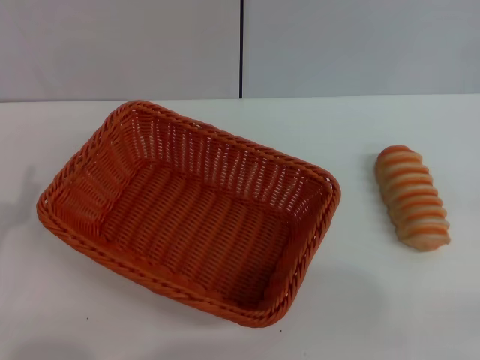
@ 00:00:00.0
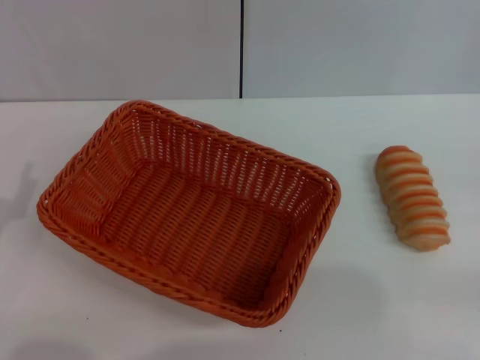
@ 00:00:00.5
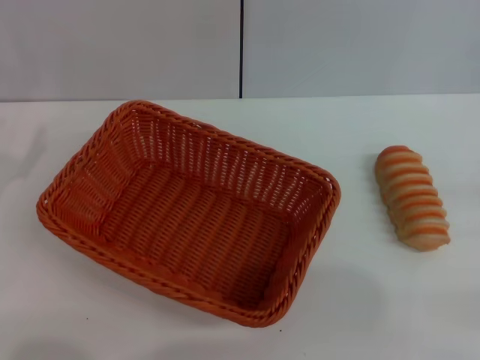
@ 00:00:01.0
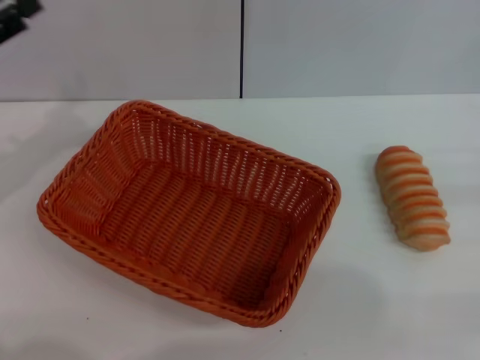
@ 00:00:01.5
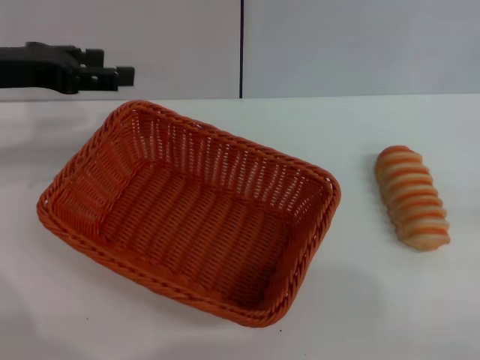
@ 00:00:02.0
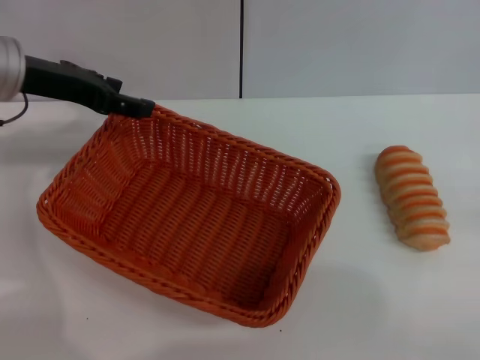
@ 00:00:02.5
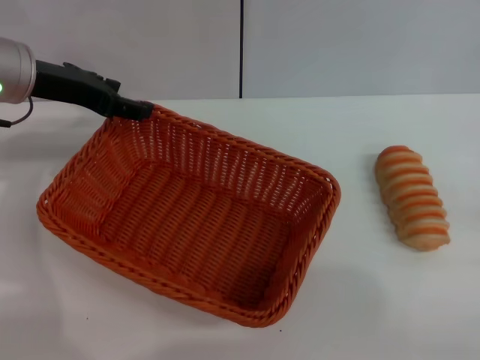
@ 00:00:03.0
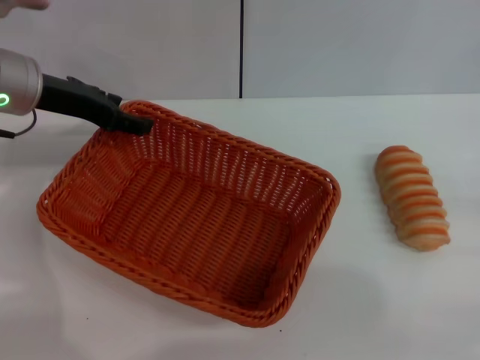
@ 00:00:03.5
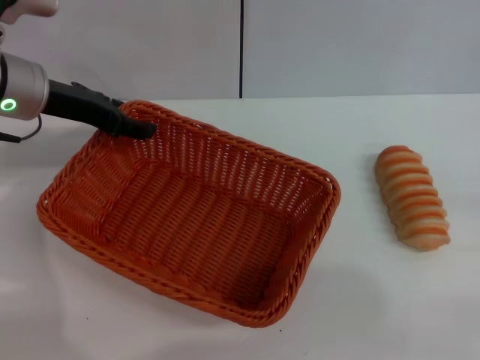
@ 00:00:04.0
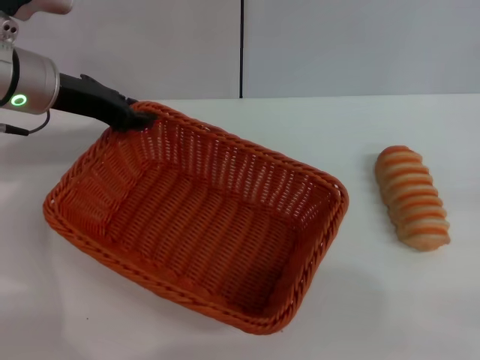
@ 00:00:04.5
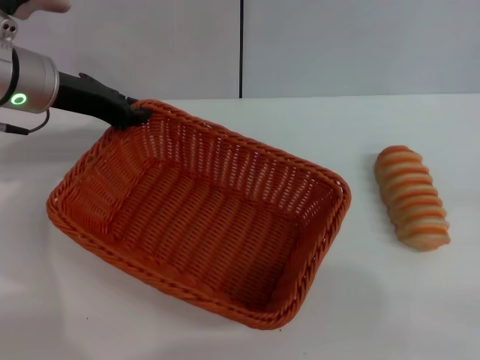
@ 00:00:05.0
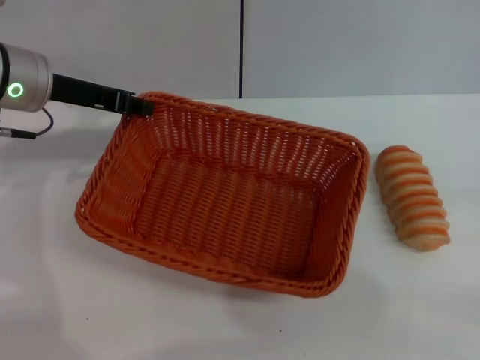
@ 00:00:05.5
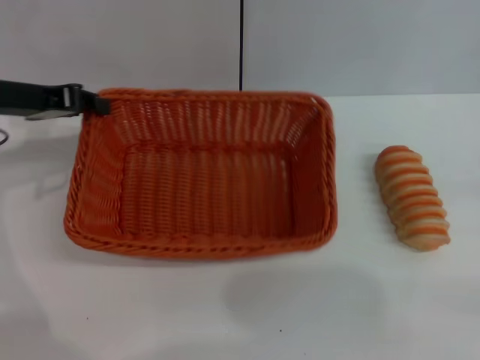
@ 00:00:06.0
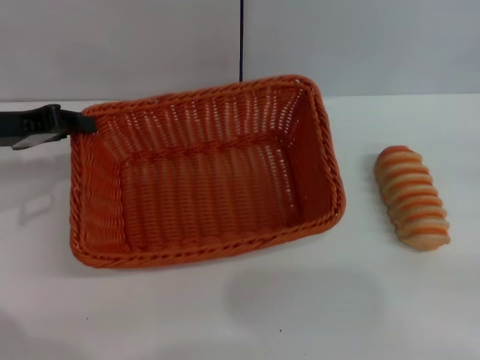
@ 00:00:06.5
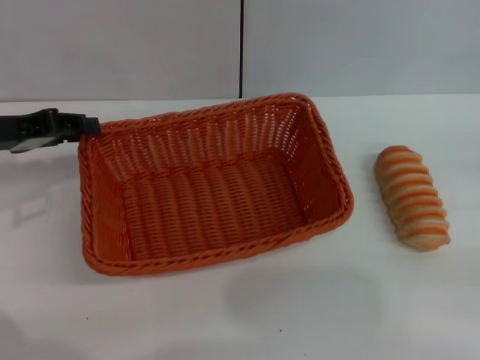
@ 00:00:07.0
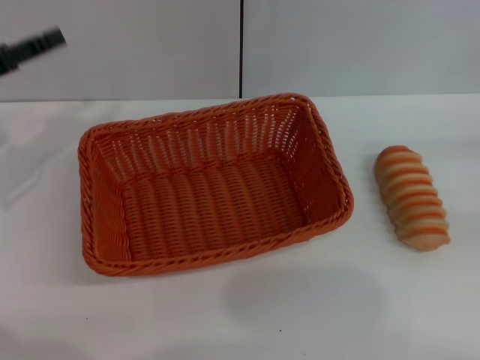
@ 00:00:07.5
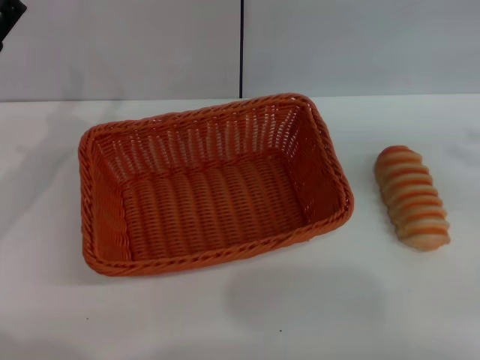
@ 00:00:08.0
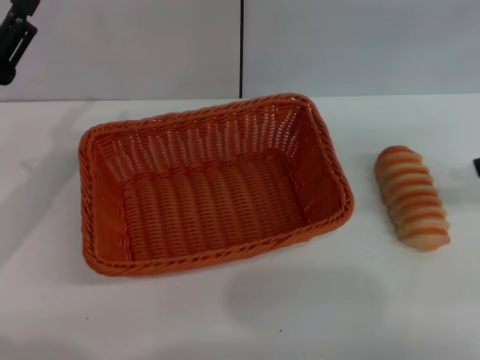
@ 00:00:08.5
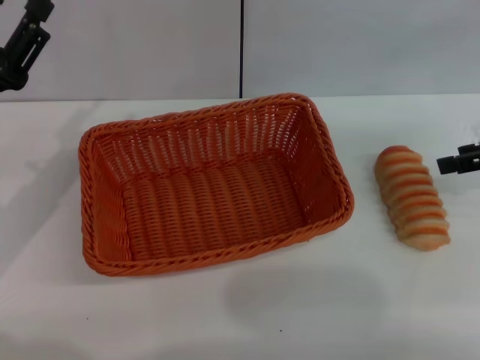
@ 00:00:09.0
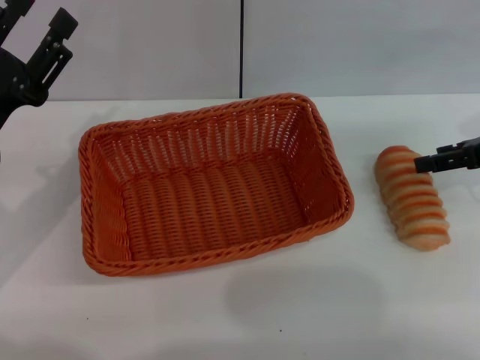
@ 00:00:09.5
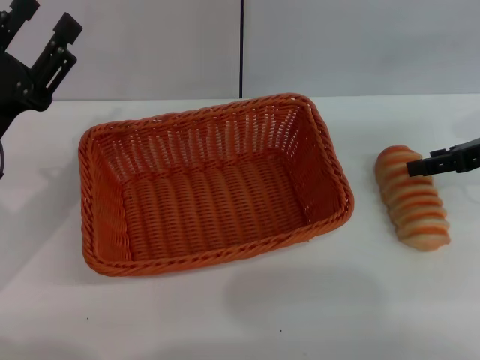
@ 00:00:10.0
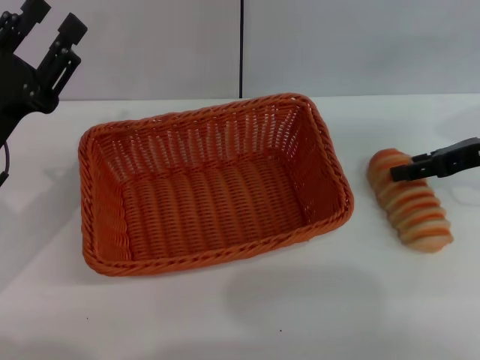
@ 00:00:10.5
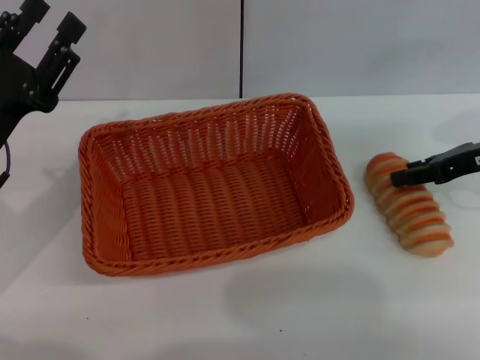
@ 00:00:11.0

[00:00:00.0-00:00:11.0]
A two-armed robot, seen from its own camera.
Step, 00:00:00.0 to 00:00:05.0: Pick up the light basket with the left gripper.
Step, 00:00:05.5 to 00:00:07.0: Place the light basket in the center of view with the left gripper.
00:00:00.0 to 00:00:02.0: The left gripper travels forward and upward by approximately 25 cm.
00:00:02.0 to 00:00:03.5: The left gripper moves about 5 cm.
00:00:03.5 to 00:00:05.5: The left gripper closes.
00:00:05.5 to 00:00:07.5: The left gripper moves to the left and backward, about 10 cm, and opens its fingers, while the right gripper goes some 10 cm upward and forward.
00:00:07.5 to 00:00:09.0: The right gripper is displaced to the left and forward by roughly 15 cm, and travels upward and back again, roughly 10 cm each way; the left gripper moves approximately 10 cm.
00:00:09.0 to 00:00:11.0: The right gripper shifts by roughly 5 cm, and closes up.

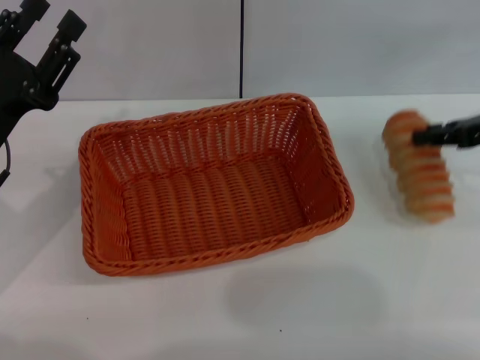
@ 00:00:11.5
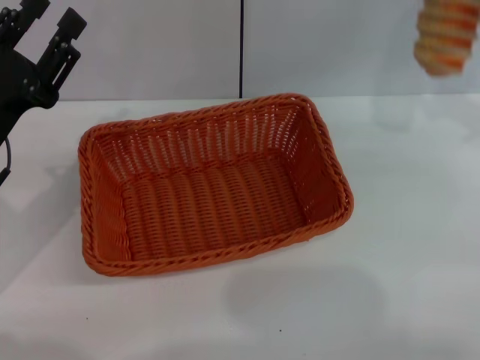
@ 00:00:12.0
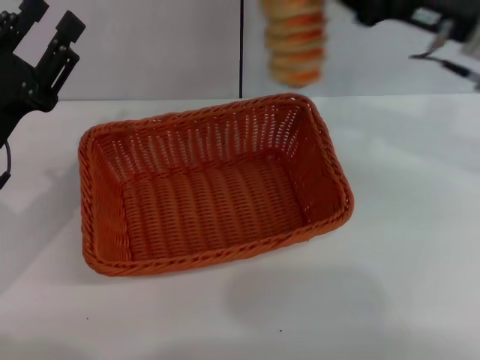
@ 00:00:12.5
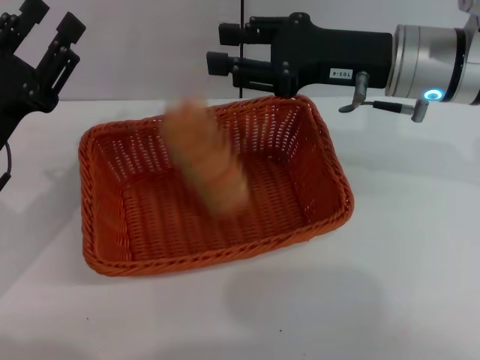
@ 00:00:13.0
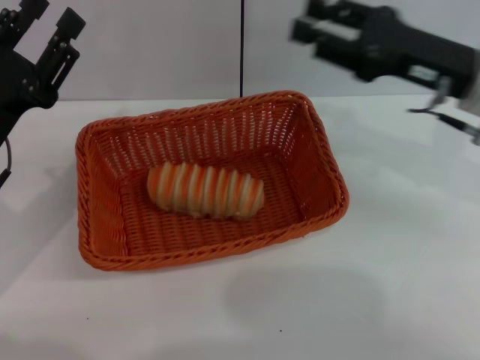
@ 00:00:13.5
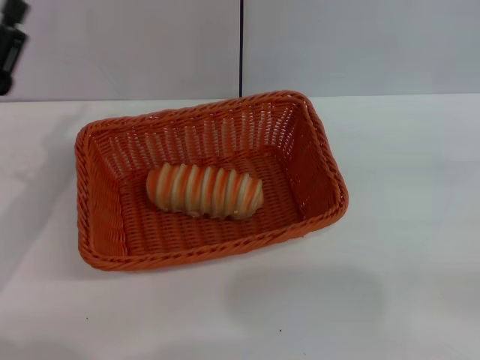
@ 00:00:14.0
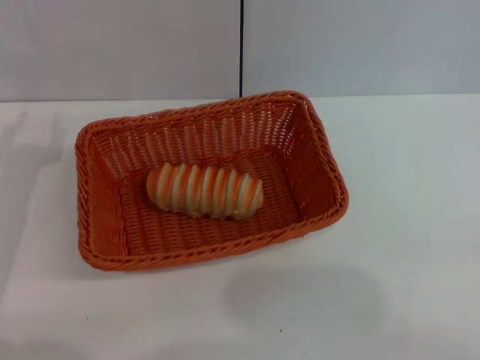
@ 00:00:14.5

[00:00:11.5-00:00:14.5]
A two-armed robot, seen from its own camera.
Step, 00:00:12.0 to 00:00:13.0: Place the long bread into the light basket with the right gripper.
00:00:11.5 to 00:00:13.0: The right gripper heads to the left, covering about 15 cm.
00:00:13.0 to 00:00:14.5: The right gripper is displaced to the right and backward by roughly 35 cm, and opens up.
